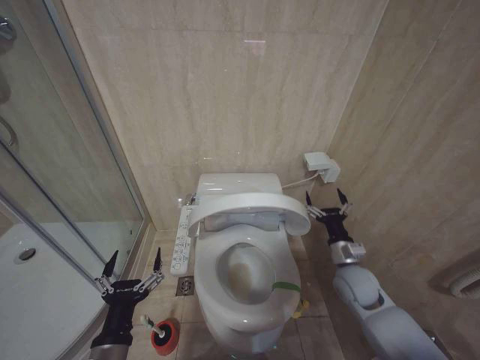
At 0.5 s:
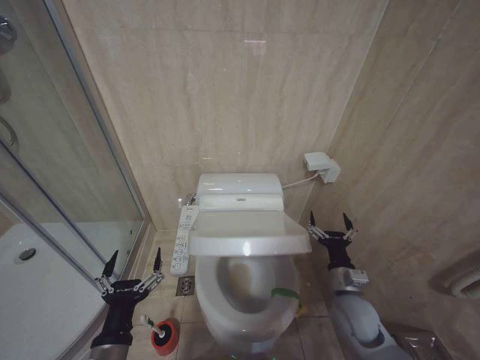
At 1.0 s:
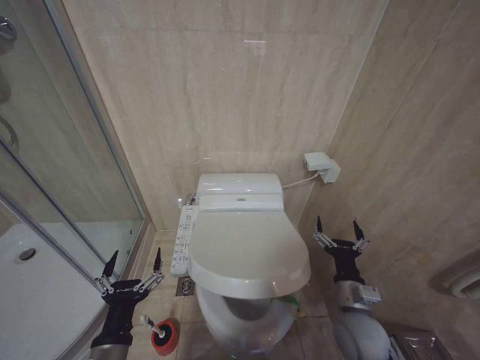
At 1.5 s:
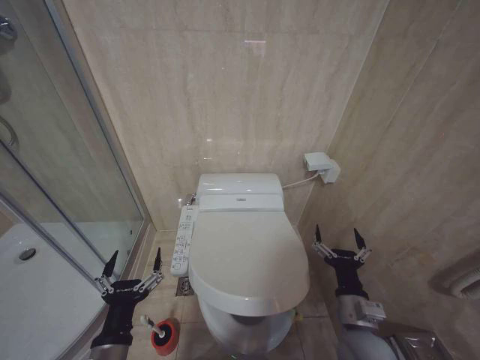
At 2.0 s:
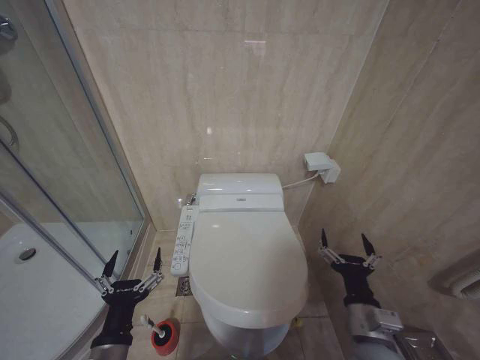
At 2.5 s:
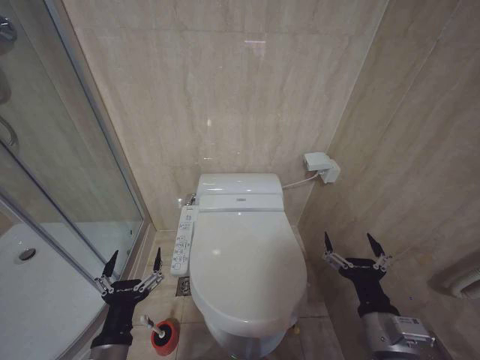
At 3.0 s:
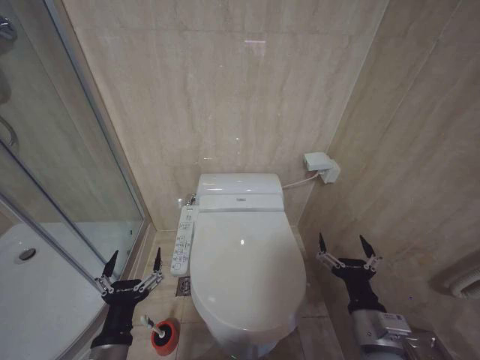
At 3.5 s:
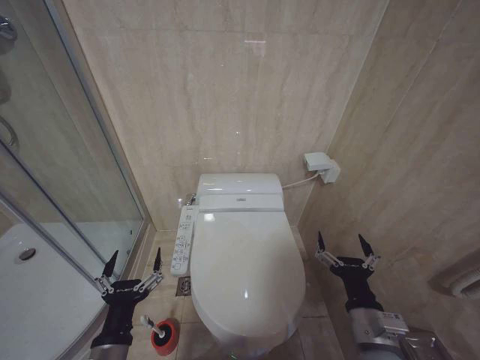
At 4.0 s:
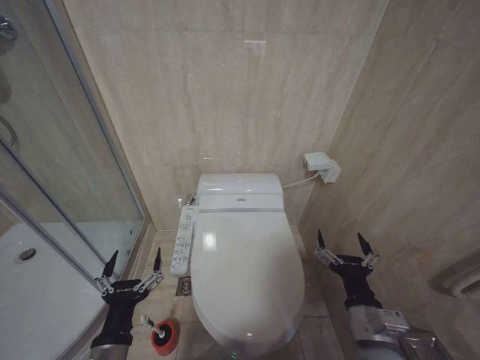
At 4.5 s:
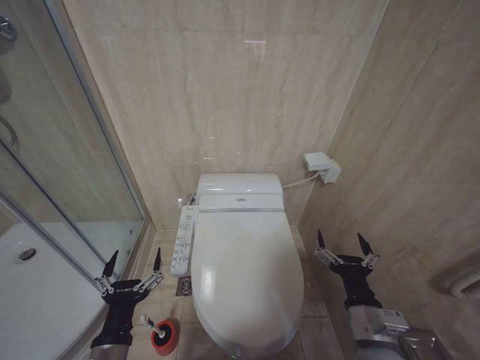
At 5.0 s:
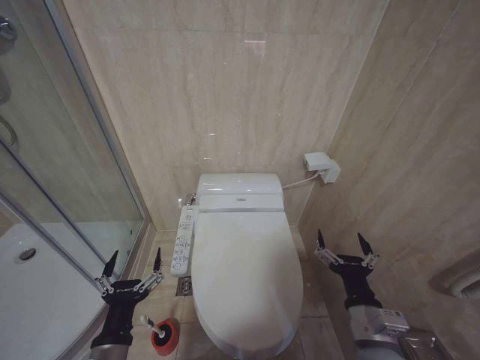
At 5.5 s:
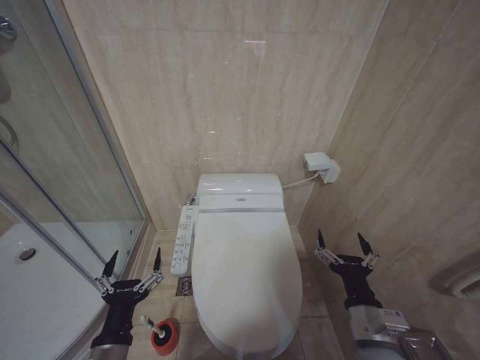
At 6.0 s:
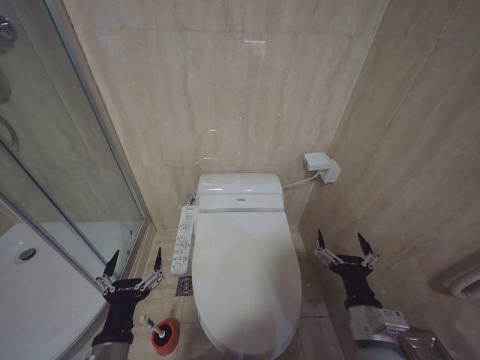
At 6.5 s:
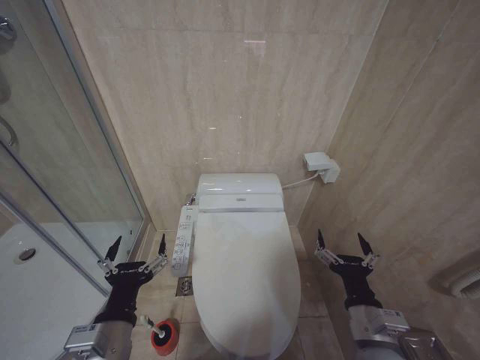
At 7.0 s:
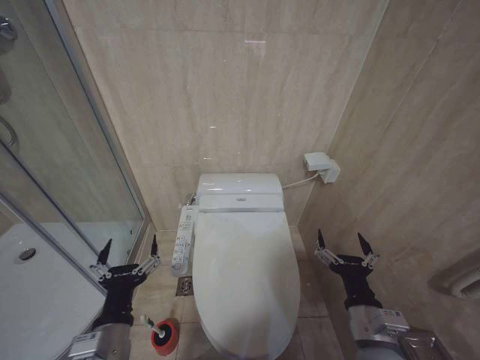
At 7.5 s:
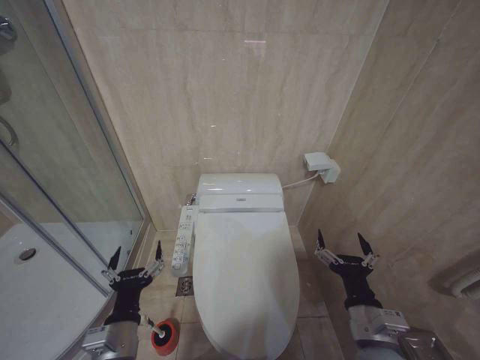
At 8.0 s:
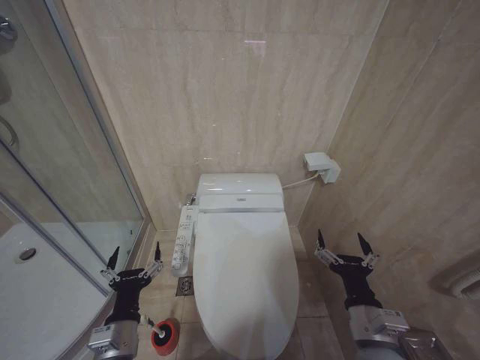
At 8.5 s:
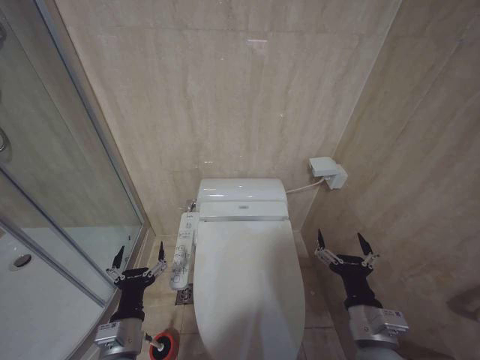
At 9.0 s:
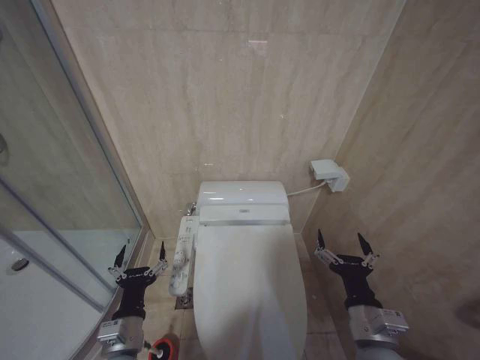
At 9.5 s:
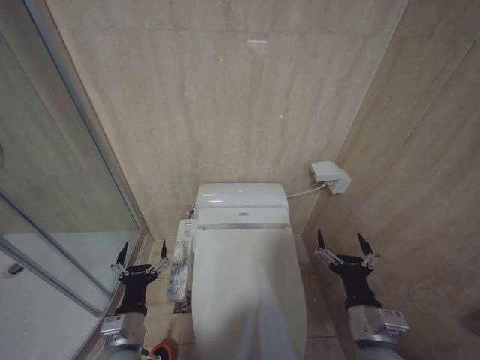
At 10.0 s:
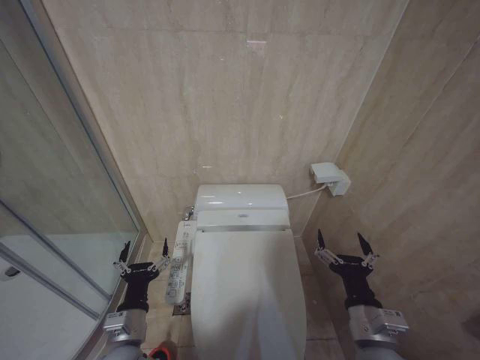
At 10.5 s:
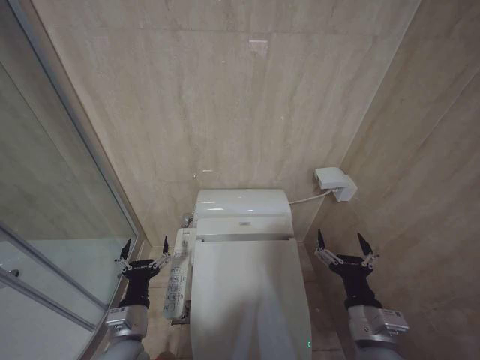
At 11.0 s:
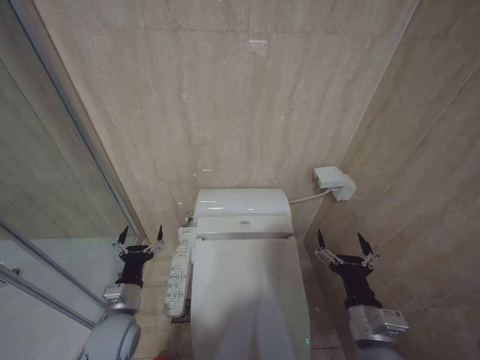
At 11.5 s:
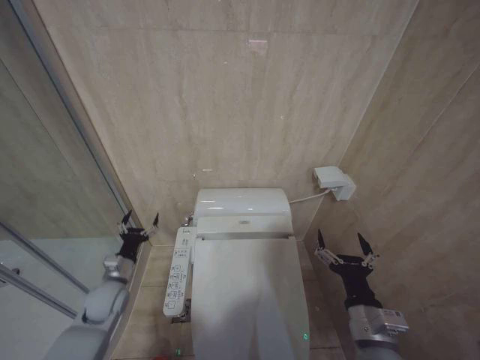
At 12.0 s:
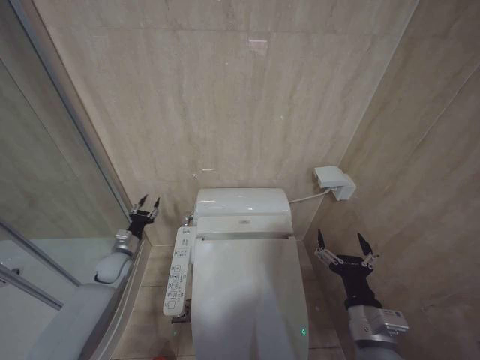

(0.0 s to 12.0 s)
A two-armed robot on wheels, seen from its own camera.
Task of the whole recording: Open the toilet lid, clean the toilet bowl with a toilet brush, close the toilet lid, and flush.
0.0 s - 2.0 s: The right gripper moves backward and to the left, approximately 20 cm.
4.0 s - 6.0 s: Neither gripper changes place.
6.0 s - 8.0 s: The left gripper travels upward and back again, approximately 5 cm each way.
8.0 s - 10.0 s: The grippers move only a little.
10.0 s - 12.0 s: The left gripper travels forward and to the left by about 25 cm.

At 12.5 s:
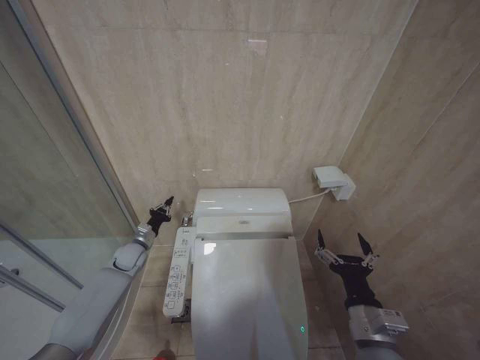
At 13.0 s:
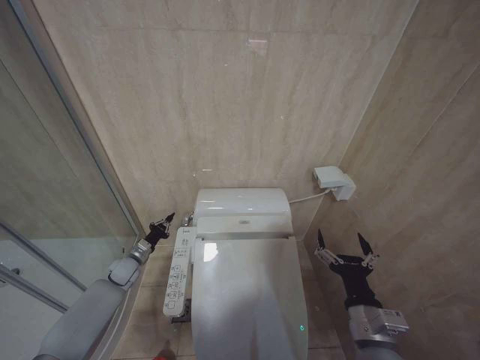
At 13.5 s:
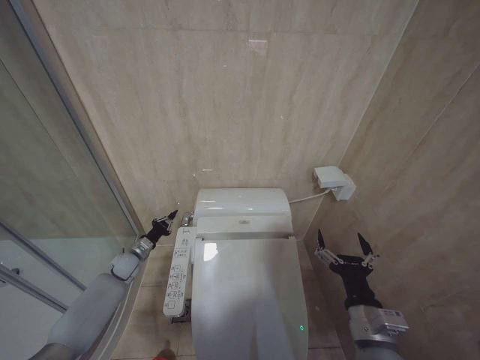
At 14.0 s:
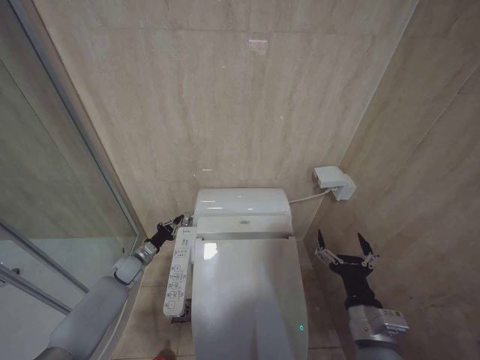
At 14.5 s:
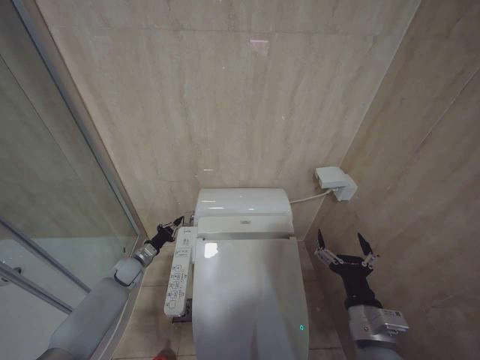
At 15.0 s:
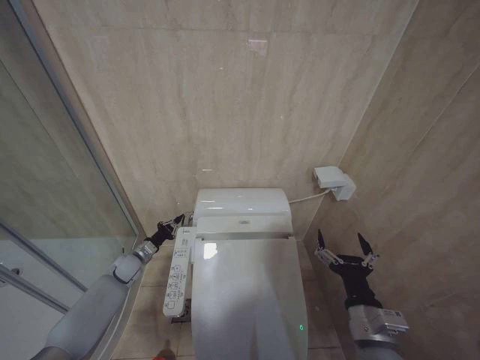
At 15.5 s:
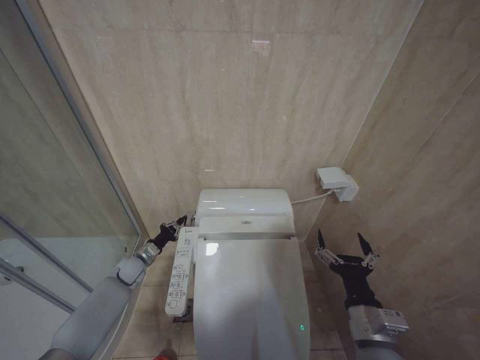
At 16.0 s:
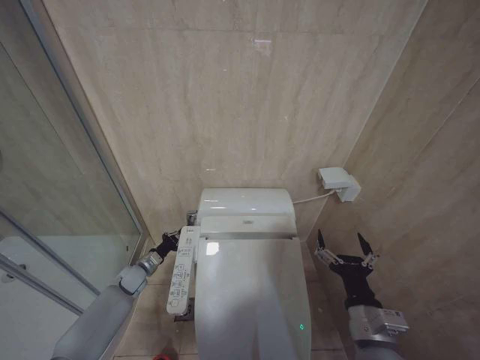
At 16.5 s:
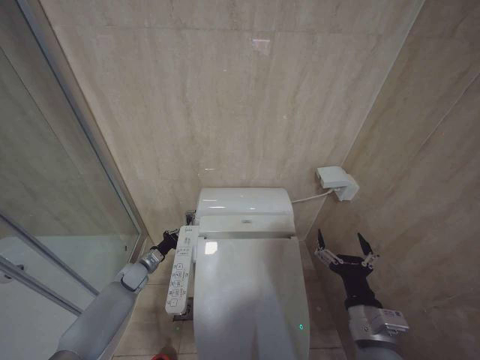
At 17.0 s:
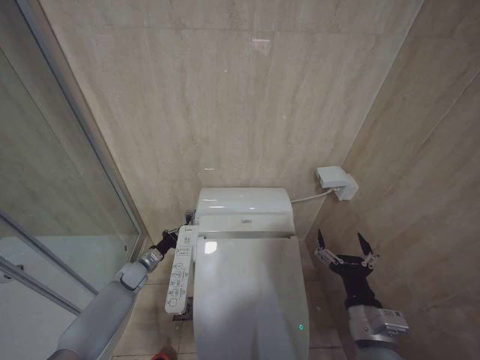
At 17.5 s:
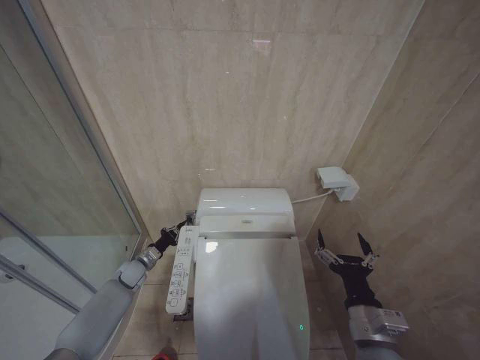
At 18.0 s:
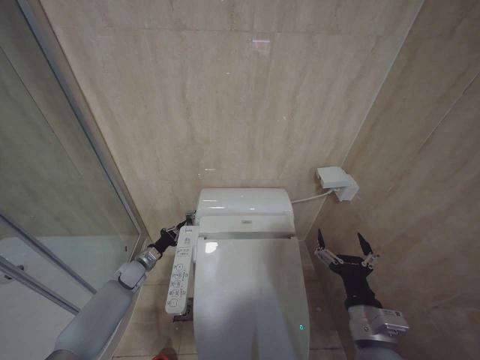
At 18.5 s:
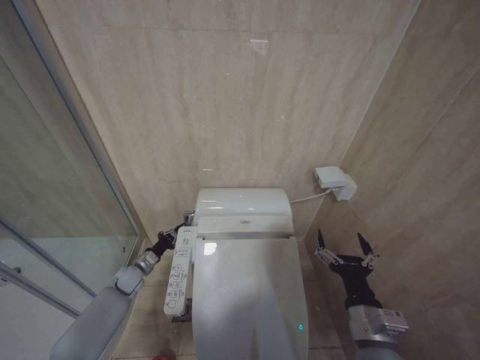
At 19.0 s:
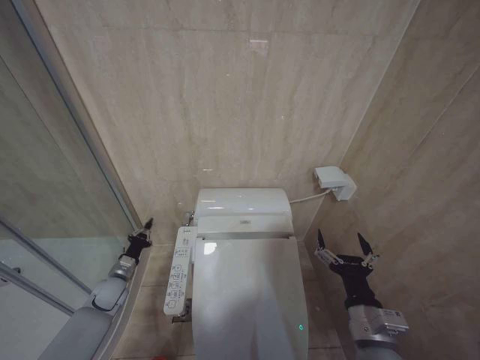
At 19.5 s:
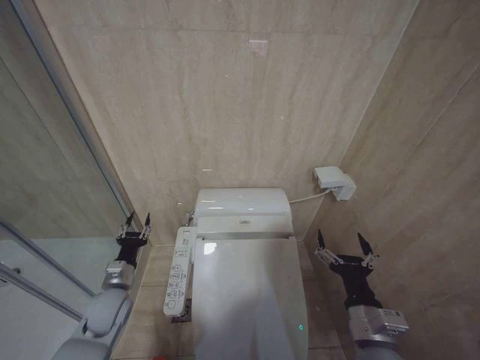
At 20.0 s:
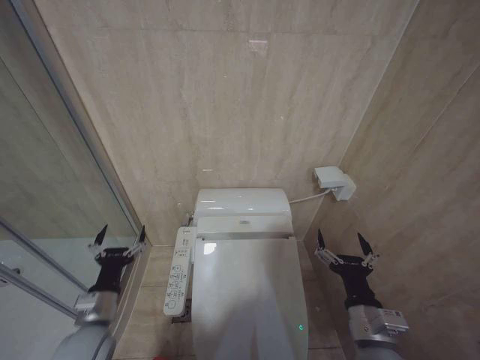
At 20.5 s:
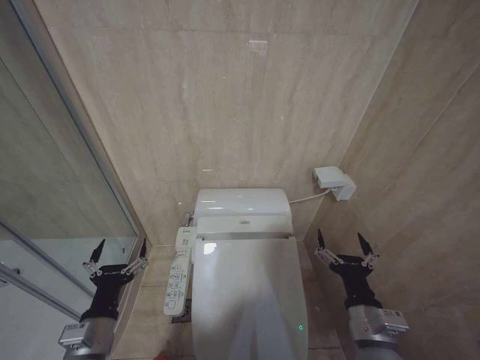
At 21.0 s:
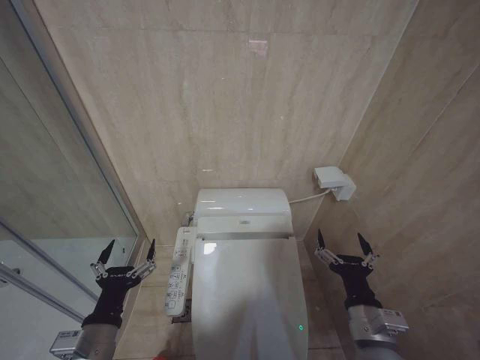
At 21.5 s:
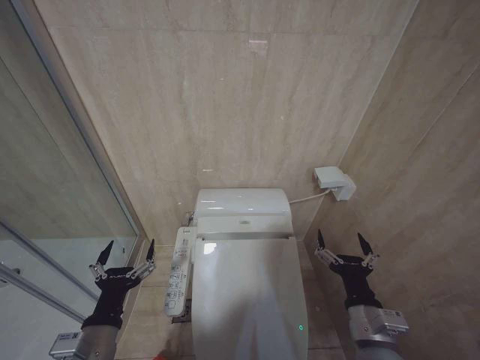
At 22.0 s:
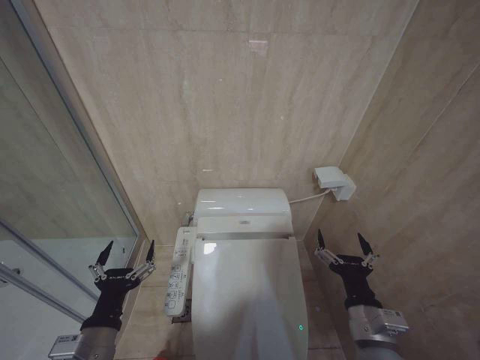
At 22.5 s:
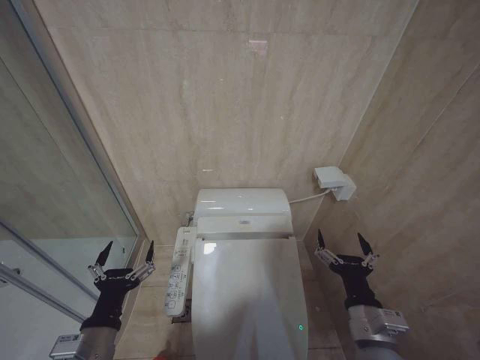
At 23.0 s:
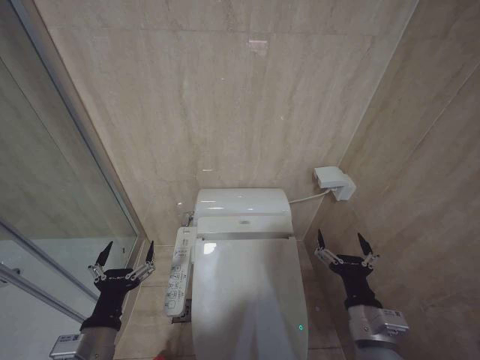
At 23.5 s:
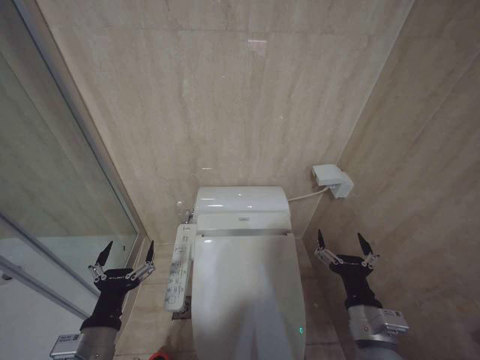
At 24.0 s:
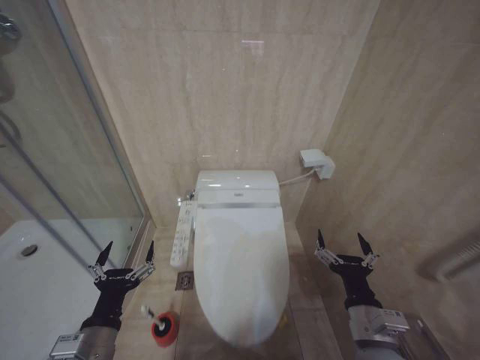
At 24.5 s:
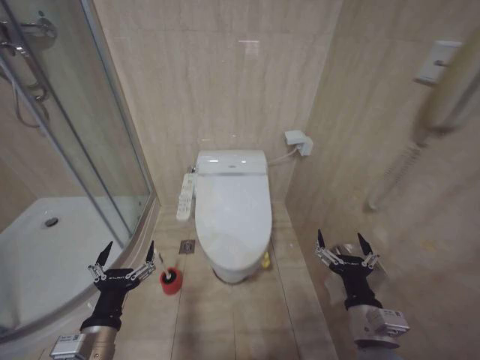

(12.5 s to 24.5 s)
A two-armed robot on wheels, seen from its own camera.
Task of the whole recording: Open the toilet lid, clean the toilet bowl with a toilet brush, close the toilet lid, and flush.
12.5 s - 14.5 s: The left gripper goes approximately 5 cm downward.
14.5 s - 16.5 s: The grippers stay close to where they were, moving slightly.
16.5 s - 18.5 s: Neither gripper changes place.
18.5 s - 20.5 s: The left gripper travels backward and upward by about 30 cm, and opens up.
20.5 s - 22.5 s: There are only small adjustments of the grippers.

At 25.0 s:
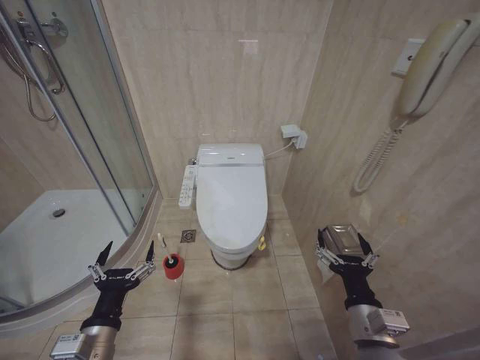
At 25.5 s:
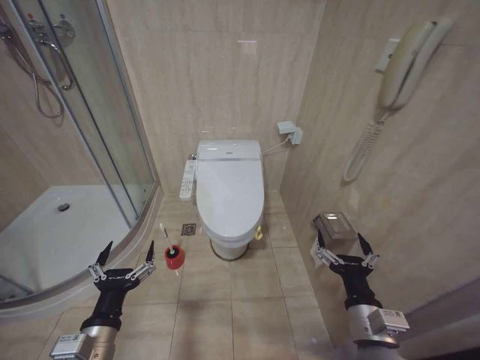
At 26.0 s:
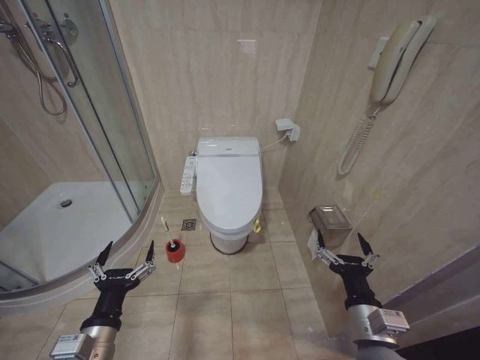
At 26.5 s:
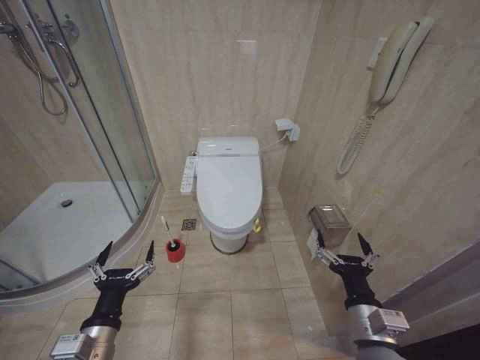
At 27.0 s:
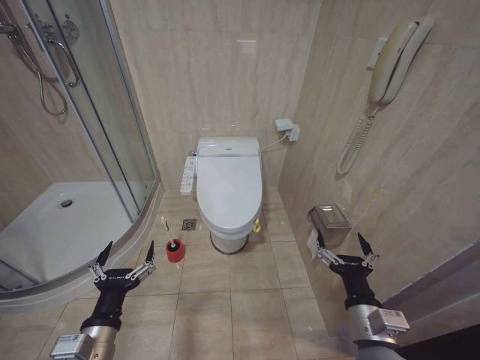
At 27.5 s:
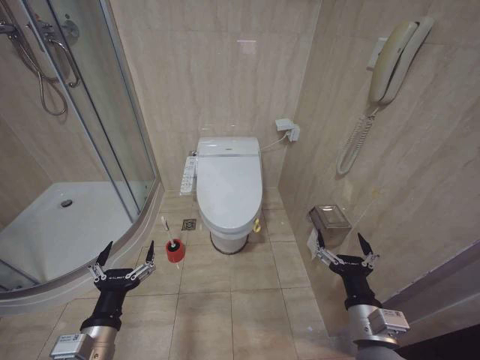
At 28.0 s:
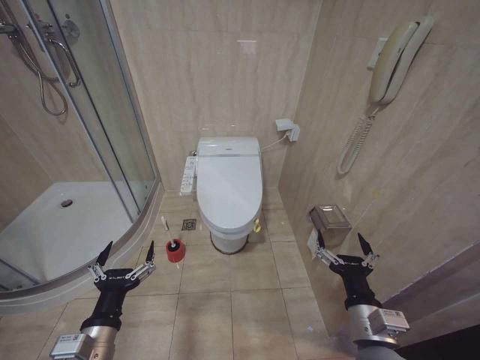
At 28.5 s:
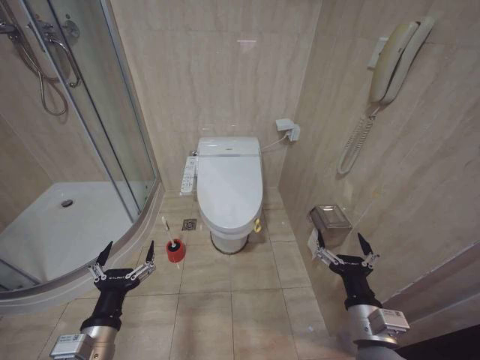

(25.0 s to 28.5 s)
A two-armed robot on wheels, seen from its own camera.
Task of the whole recording: Open the toilet lid, clean the toilet bowl with a toilet brush, close the toilet lid, and flush.
25.0 s - 28.5 s: Both grippers stay about where they are.
